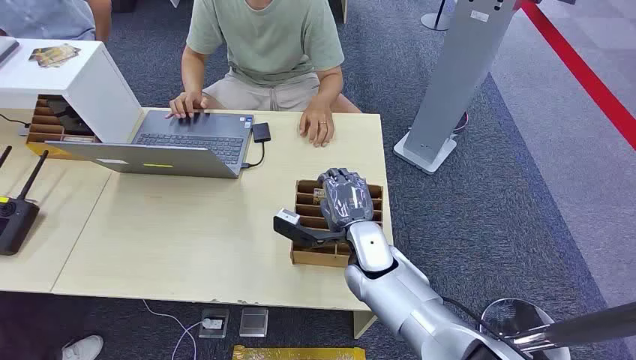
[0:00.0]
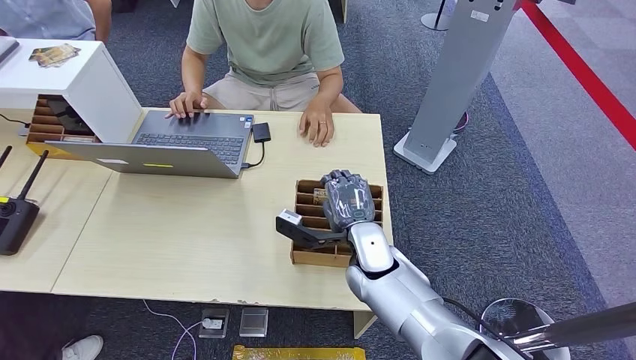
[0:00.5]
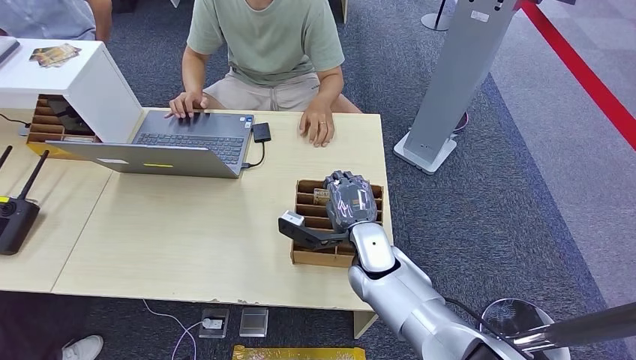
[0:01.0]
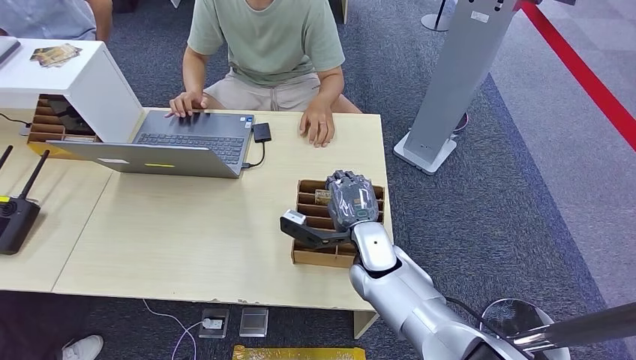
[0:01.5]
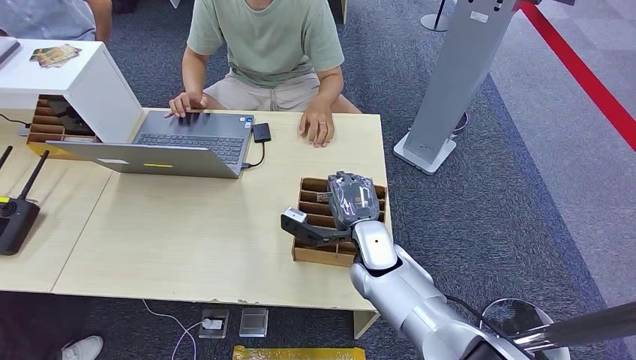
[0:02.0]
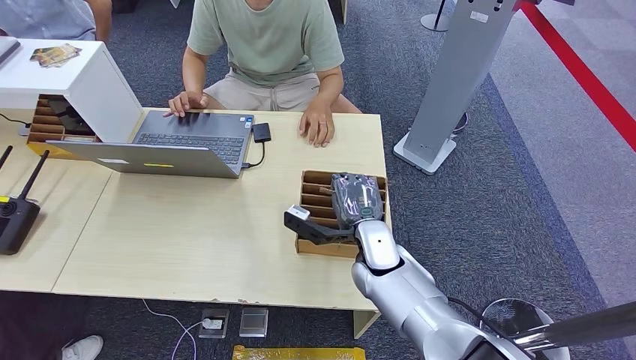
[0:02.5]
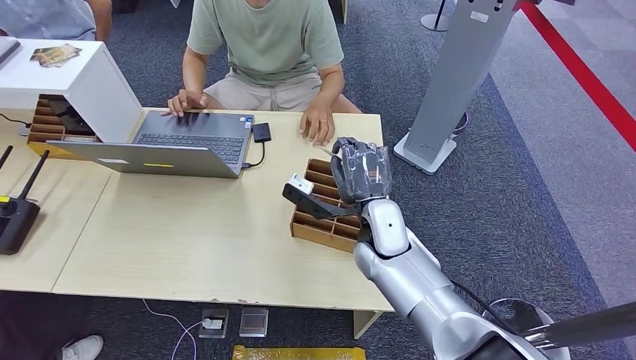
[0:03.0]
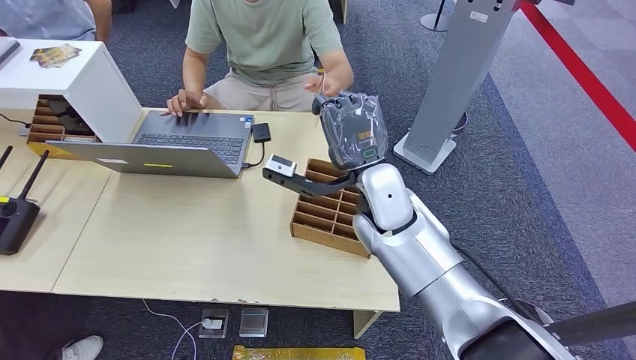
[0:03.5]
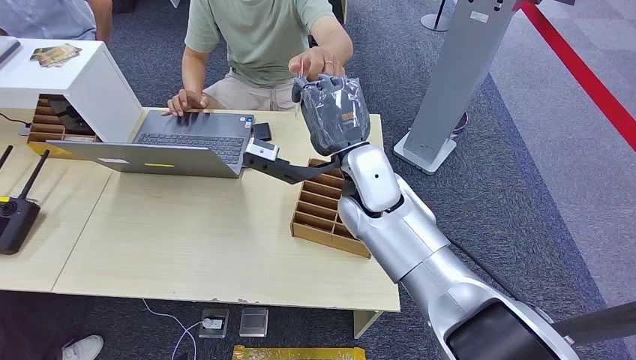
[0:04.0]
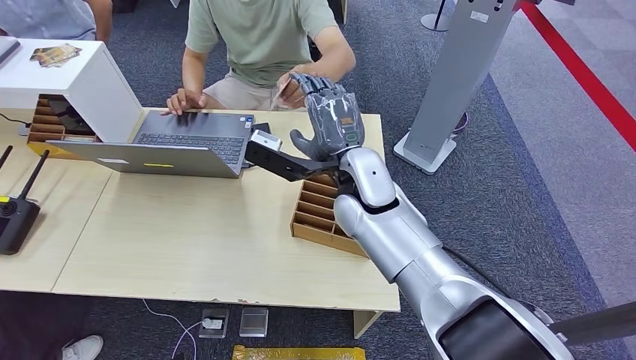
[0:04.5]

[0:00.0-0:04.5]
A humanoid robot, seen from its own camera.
Step, 0:00.0 to 0:03.0: Pick up the room card from the card holder.
Step, 0:04.0 to 0:04.5: Hand the room card to the target.
0:02.0 to 0:04.5: The right hand goes about 15 cm upward.
